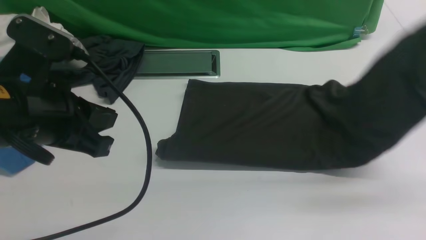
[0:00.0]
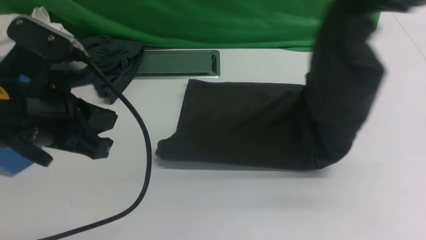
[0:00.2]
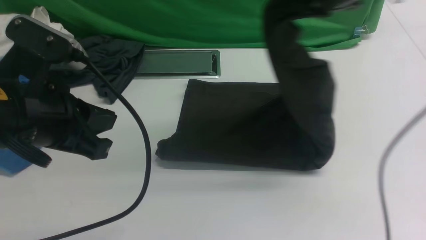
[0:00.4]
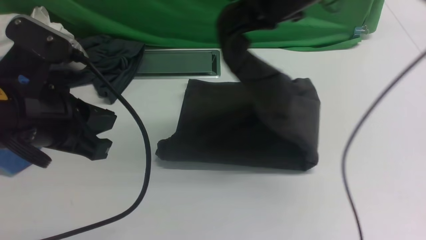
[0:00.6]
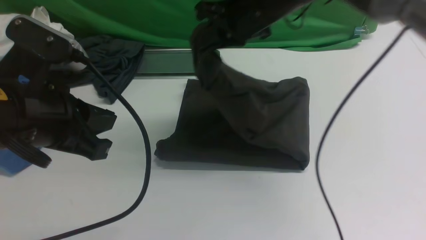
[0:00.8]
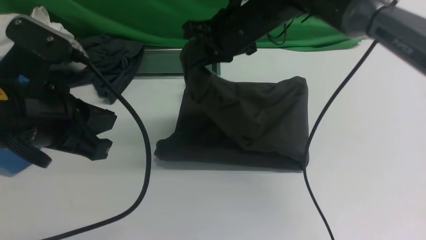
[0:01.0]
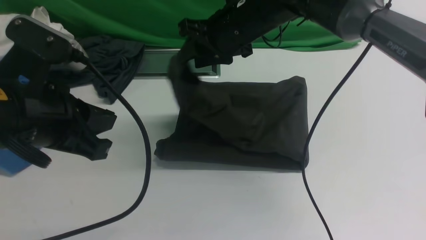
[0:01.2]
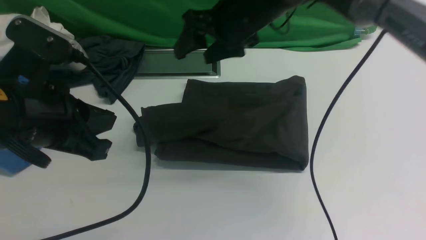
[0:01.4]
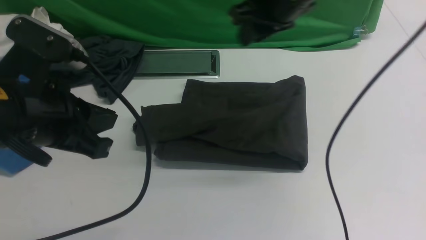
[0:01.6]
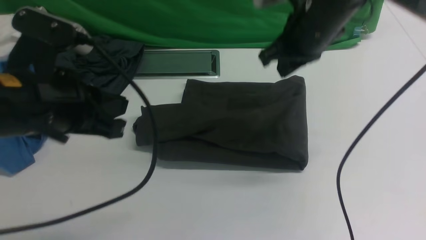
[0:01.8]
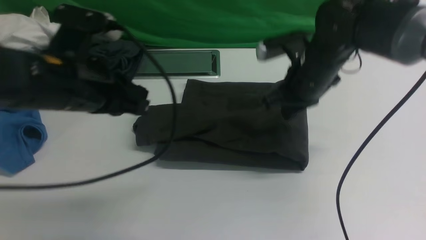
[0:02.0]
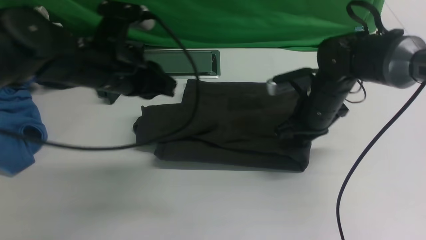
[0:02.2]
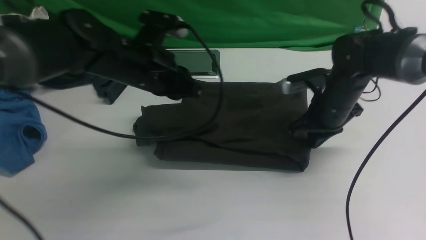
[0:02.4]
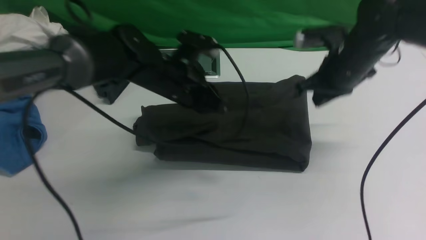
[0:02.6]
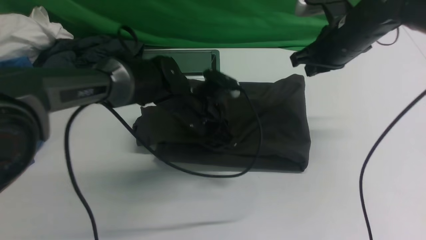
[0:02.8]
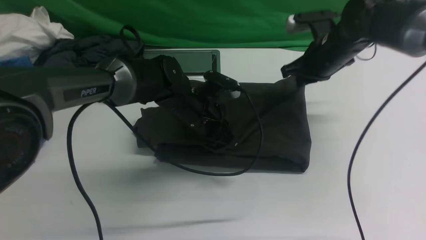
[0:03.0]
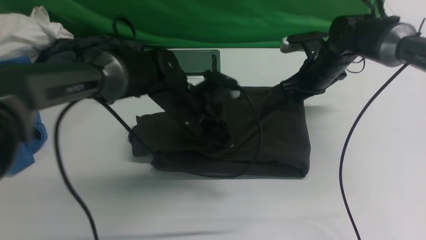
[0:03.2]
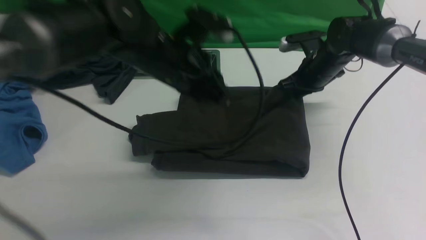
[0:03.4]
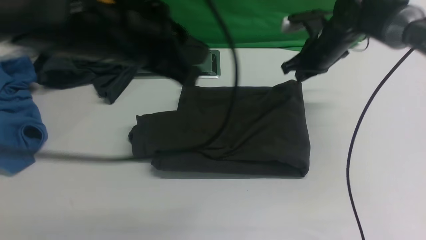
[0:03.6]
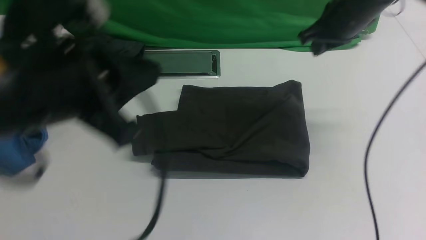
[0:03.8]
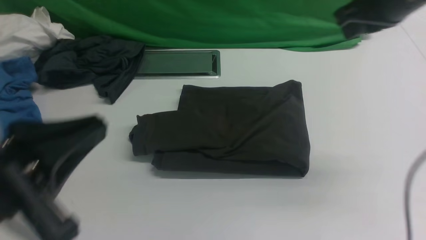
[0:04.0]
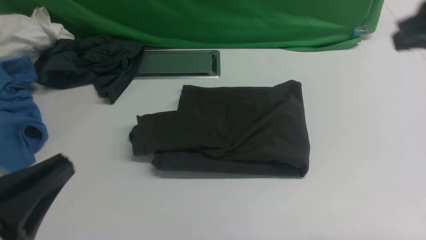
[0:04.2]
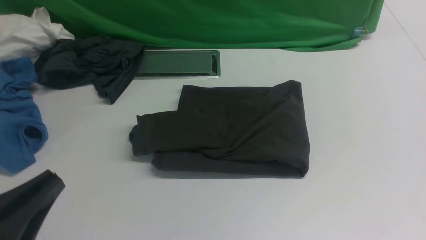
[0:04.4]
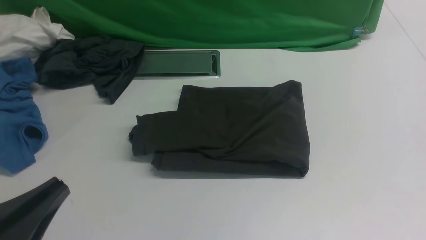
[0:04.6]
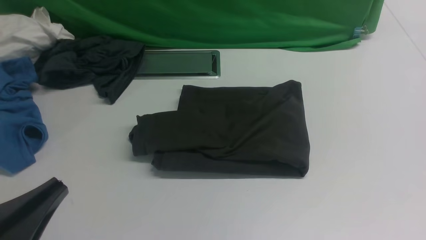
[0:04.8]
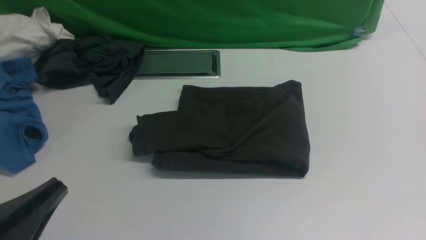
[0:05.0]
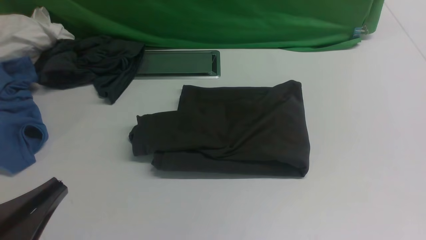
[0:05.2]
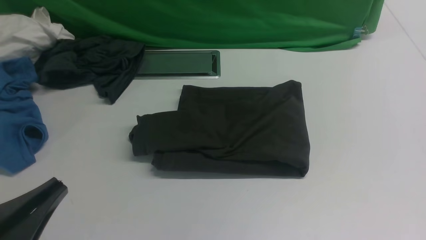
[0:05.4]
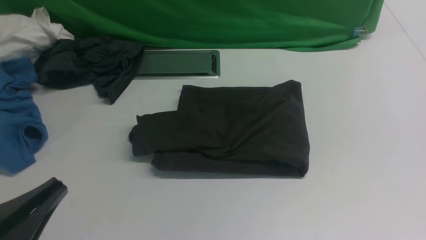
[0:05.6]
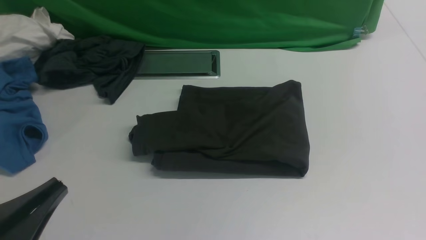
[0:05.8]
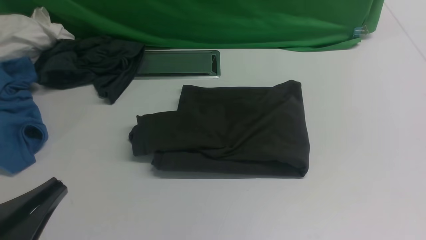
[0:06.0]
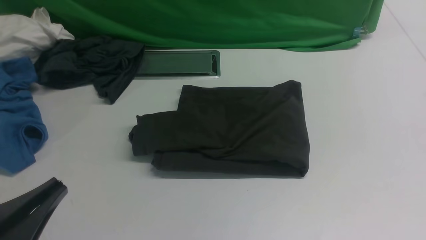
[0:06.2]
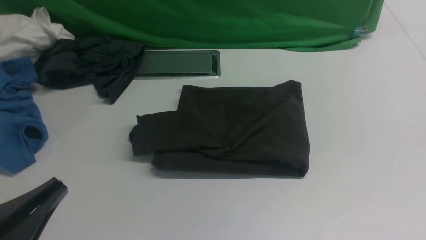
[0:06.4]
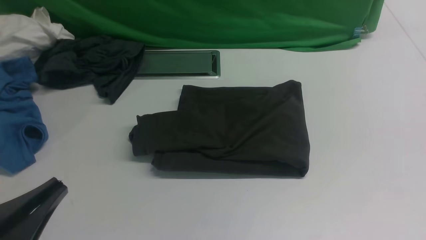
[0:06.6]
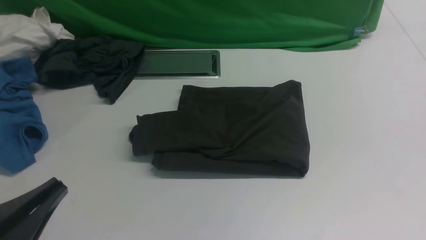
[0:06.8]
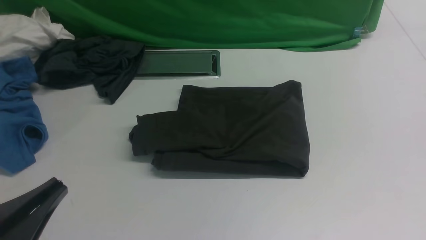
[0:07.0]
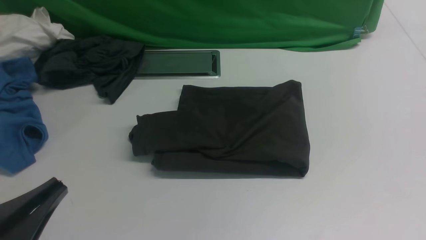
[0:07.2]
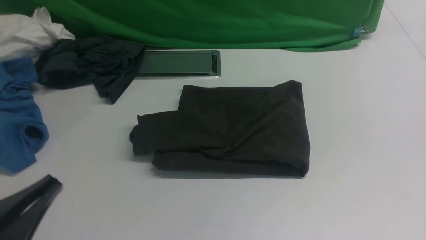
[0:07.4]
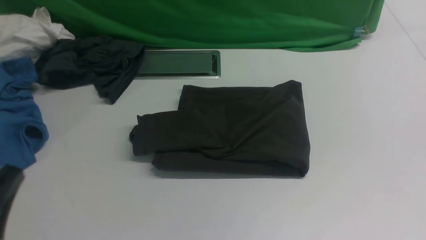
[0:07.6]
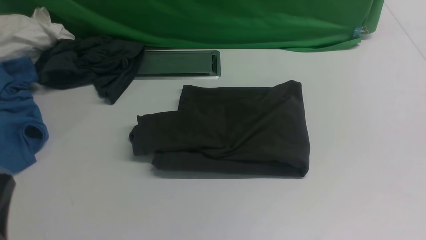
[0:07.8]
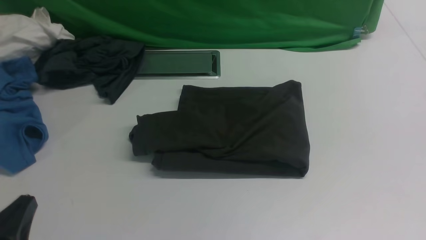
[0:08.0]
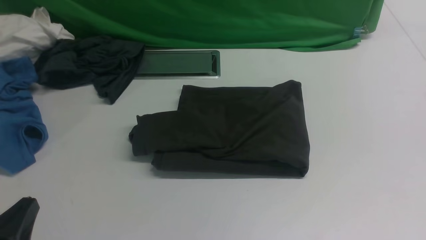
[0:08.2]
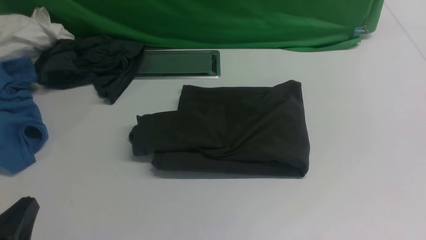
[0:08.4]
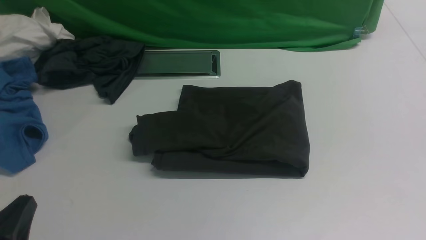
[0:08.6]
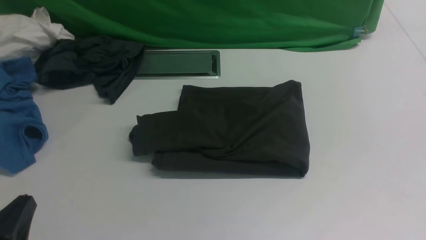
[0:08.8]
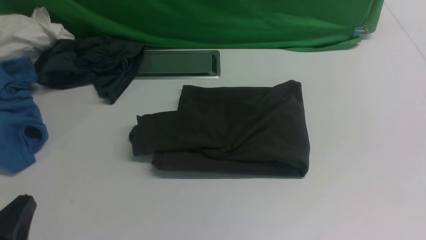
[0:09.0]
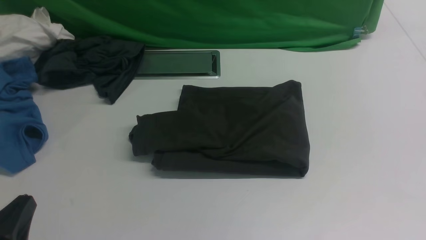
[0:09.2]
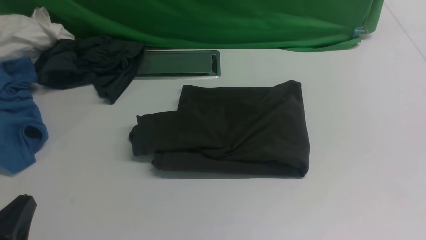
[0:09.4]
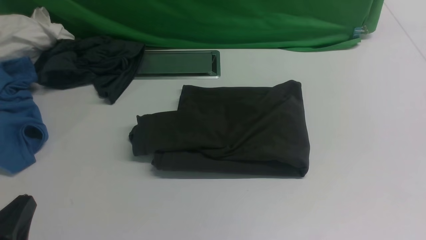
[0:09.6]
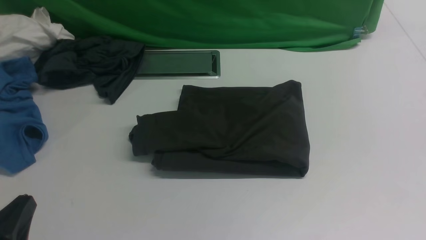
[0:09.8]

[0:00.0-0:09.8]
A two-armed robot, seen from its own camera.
Step, 0:00.0 to 0:02.0: use the right arm to drag the right edge of the fabric to the left and folds it over the left edge.
0:00.0 to 0:01.4: The right gripper shifts about 25 cm to the left, and opens its fingers.
0:01.4 to 0:02.8: The right gripper shifts about 15 cm to the right and downward, and closes its fingers. The left gripper travels forward, downward and to the right by about 30 cm.
0:02.8 to 0:04.2: The right gripper travels backward and upward by about 25 cm. The left gripper shifts about 35 cm backward and to the left.
0:04.2 to 0:05.6: The right gripper travels backward and downward by some 20 cm.
0:07.0 to 0:08.4: The left gripper moves downward, roughly 5 cm.
0:08.4 to 0:09.8: Both grippers stay about where they are.

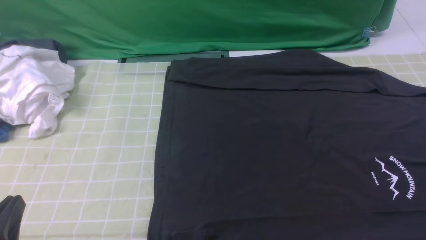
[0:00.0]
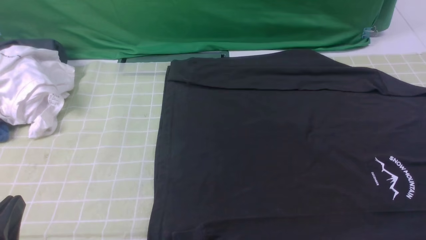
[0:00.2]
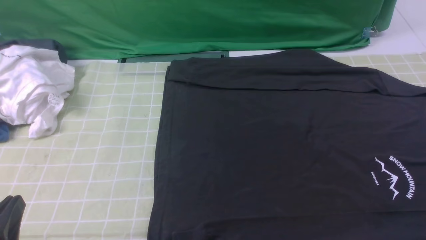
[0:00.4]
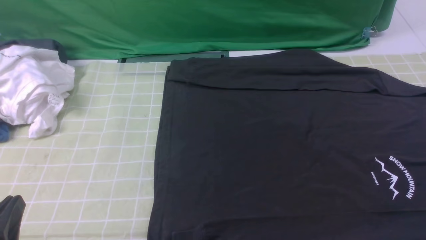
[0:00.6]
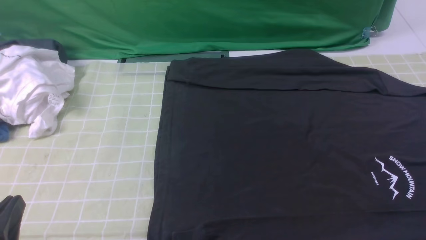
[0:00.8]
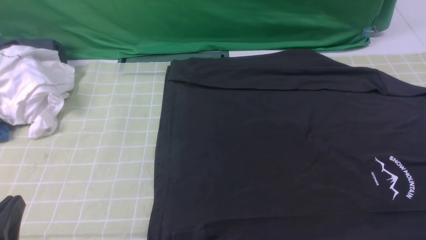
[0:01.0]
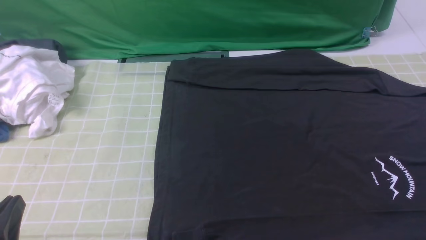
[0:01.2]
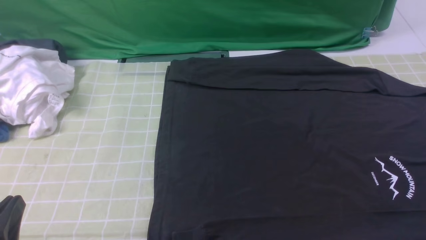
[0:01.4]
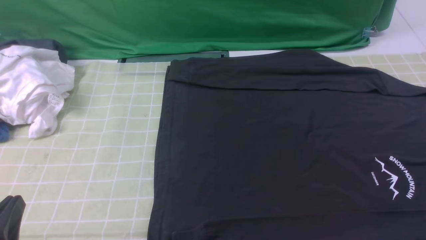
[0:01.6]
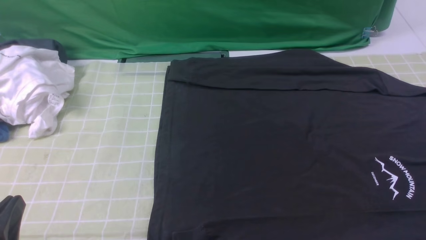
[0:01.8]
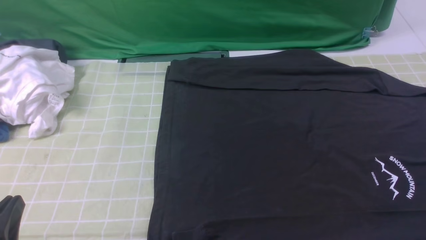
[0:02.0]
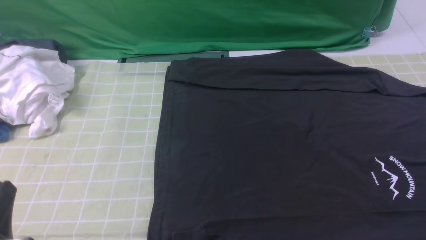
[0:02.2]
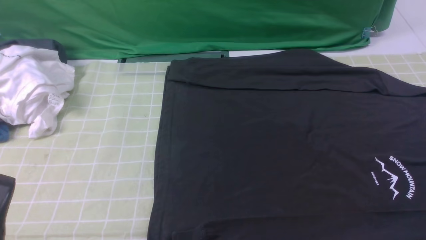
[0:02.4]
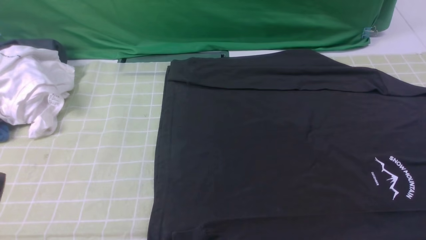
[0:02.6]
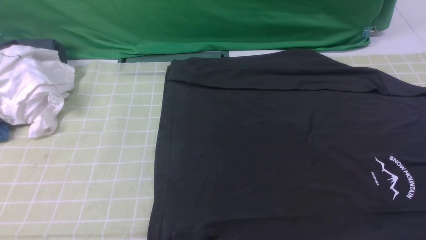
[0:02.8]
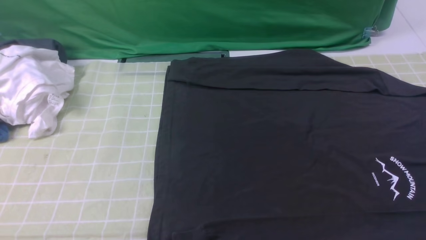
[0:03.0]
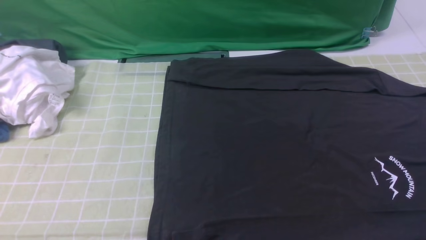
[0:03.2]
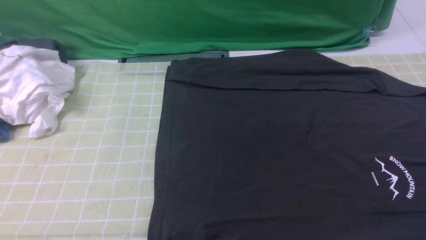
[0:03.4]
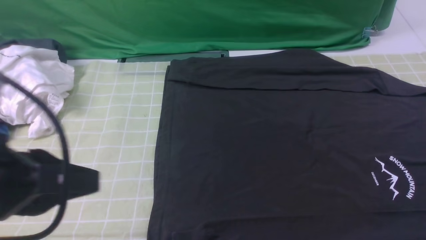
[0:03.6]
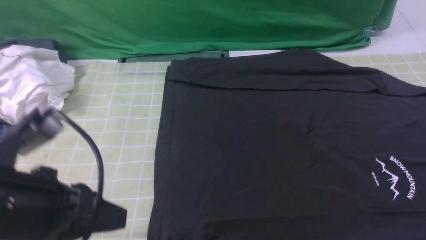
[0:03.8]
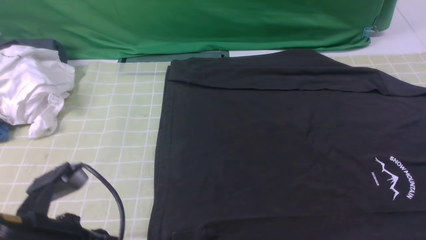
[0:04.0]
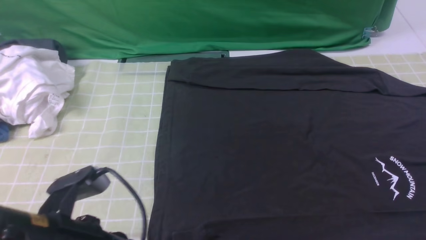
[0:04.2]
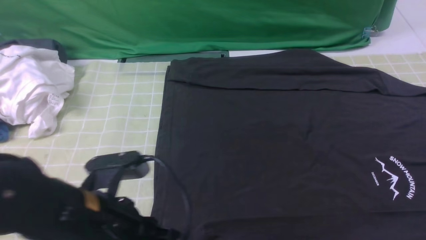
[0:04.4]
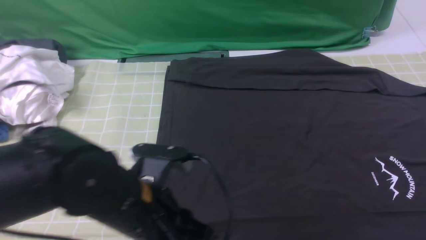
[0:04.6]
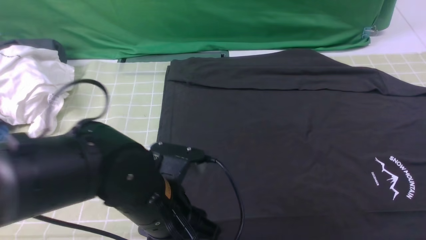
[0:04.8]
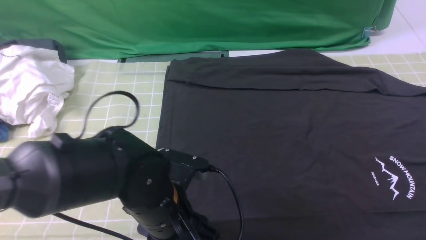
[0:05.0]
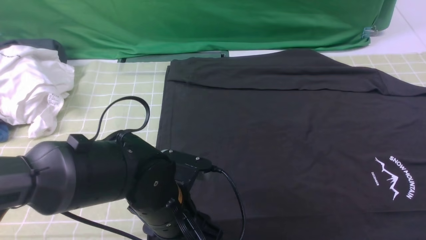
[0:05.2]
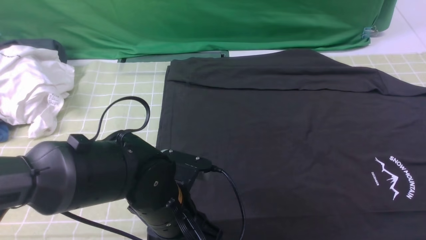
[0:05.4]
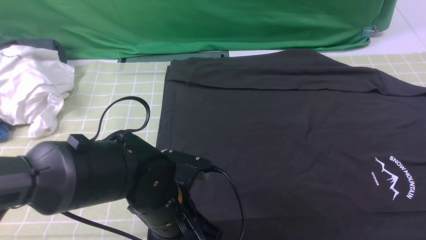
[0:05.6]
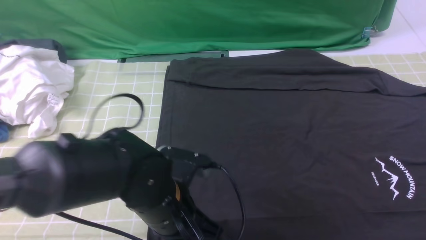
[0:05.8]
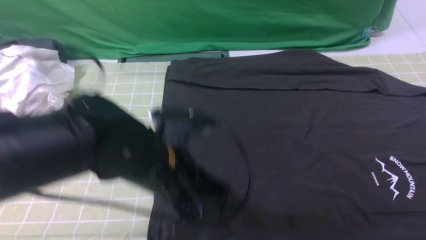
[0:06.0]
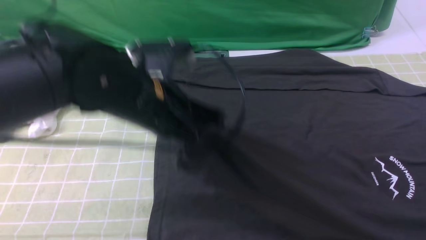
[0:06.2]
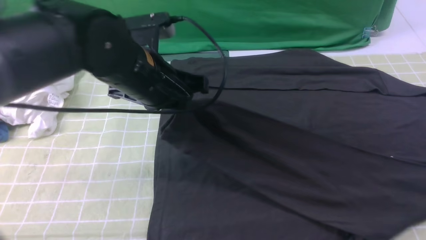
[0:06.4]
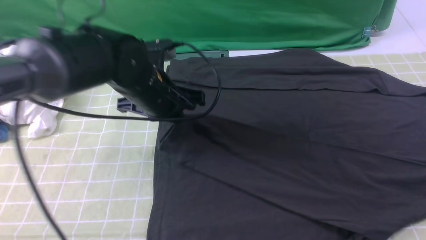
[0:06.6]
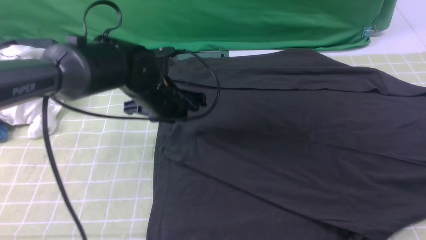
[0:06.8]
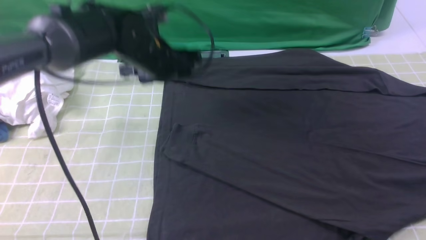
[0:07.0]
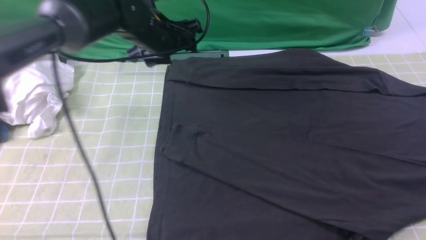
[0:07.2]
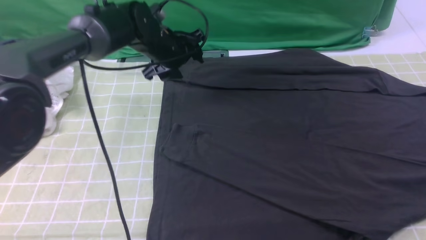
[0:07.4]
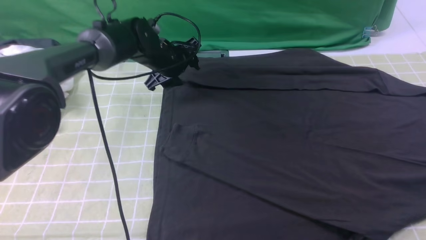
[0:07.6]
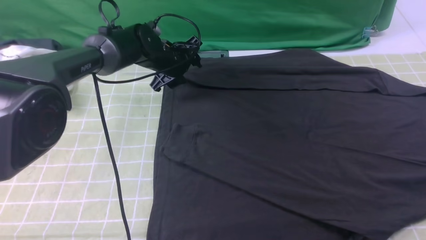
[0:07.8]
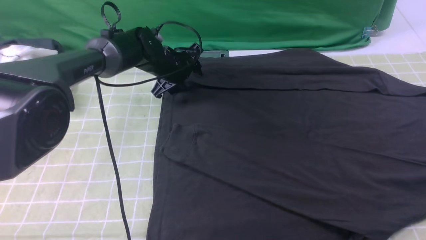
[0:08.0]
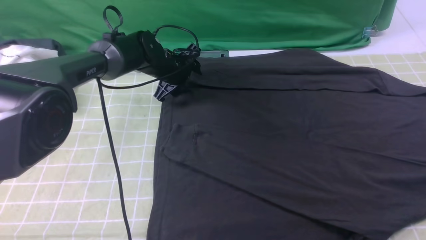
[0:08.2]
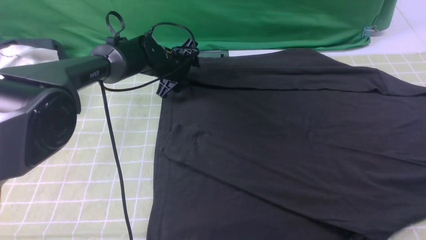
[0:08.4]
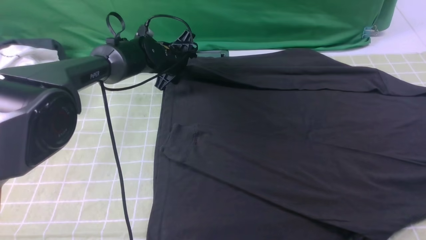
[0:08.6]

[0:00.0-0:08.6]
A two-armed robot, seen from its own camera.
Step, 0:00.0 to 0:05.6: use the left arm to clamp the cuff closest to it.
Step, 0:05.8 to 0:06.8: use the left arm to drag and place the cuff at the centered position on the left edge of the fabric.
0:00.0 to 0:01.4: The two grippers keep their place.
0:02.8 to 0:04.4: The right gripper moves upward and forward, some 10 cm, while the left gripper moves to the right and forward, roughly 15 cm.
0:04.4 to 0:05.8: The left gripper is displaced to the right and forward by about 10 cm, and opens, then closes again.
0:05.8 to 0:07.2: The left gripper moves forward, roughly 25 cm, and opens up.
0:07.2 to 0:08.6: The left gripper is displaced downward and forward by approximately 10 cm.
